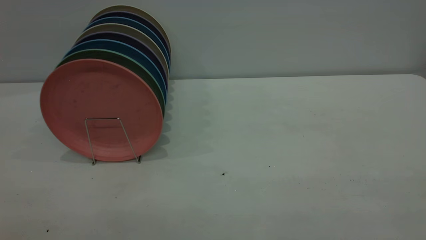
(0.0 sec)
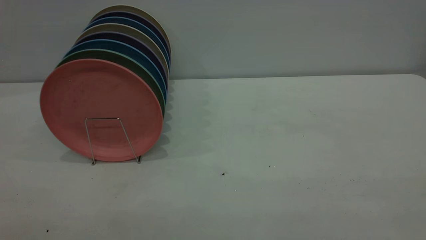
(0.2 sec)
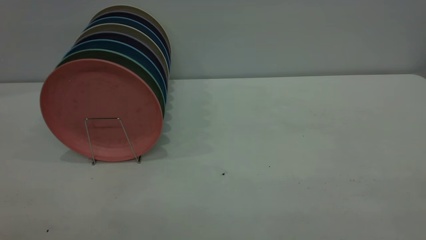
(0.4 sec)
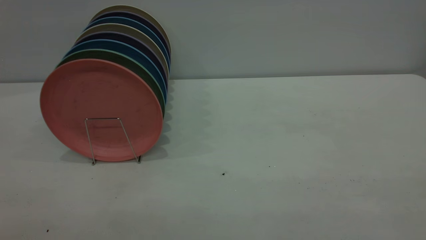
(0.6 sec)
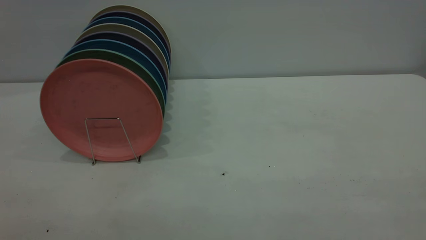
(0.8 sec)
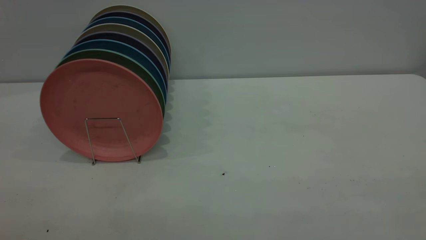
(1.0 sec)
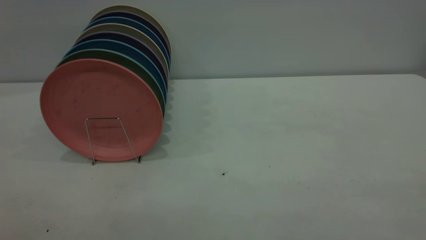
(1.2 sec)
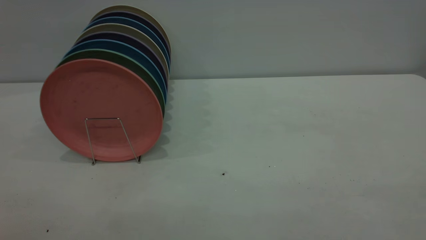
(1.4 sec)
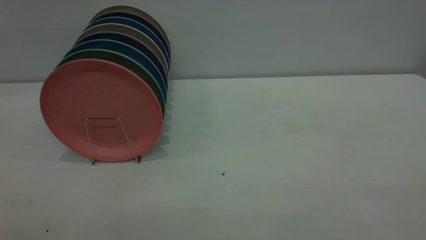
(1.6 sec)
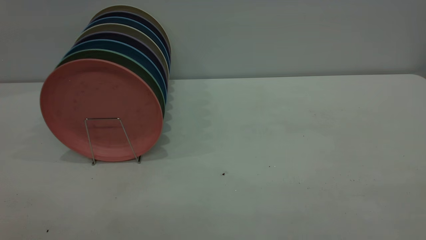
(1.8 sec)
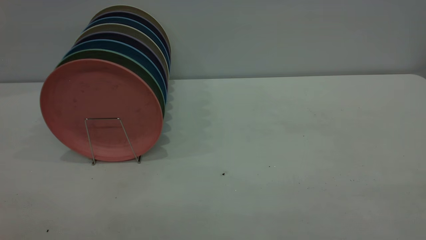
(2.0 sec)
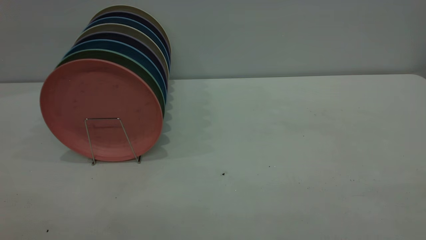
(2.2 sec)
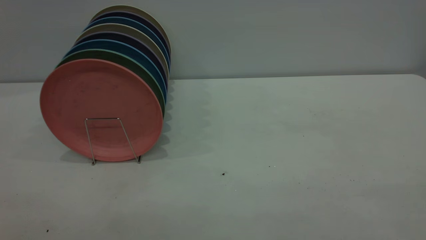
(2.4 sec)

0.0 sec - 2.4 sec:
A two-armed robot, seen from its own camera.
Task of the whole recording: the right gripper grasp the pink plate, the right gripper pass the pink plate to the left gripper, and the left gripper place the pink plate on the plate rack.
1.2 sec - 2.4 sec: Neither gripper changes place.
